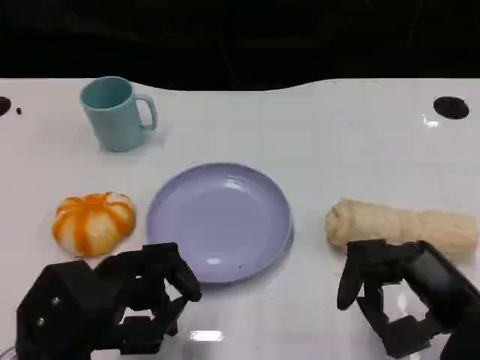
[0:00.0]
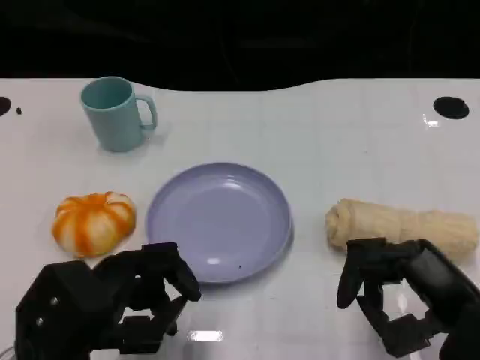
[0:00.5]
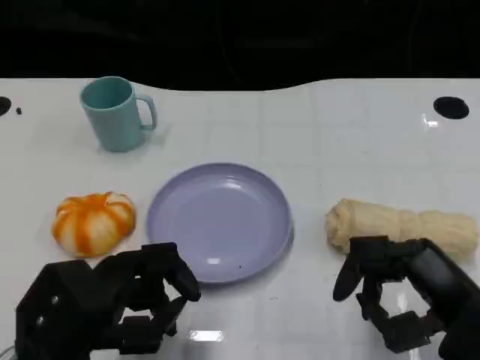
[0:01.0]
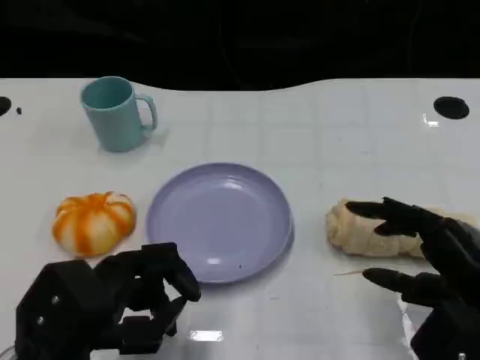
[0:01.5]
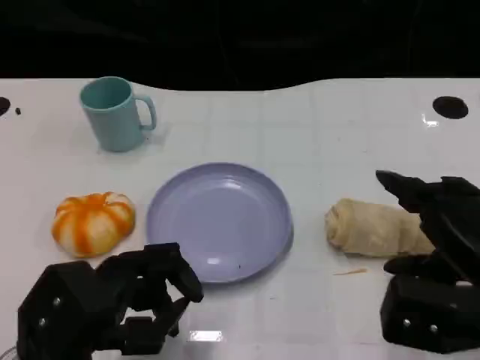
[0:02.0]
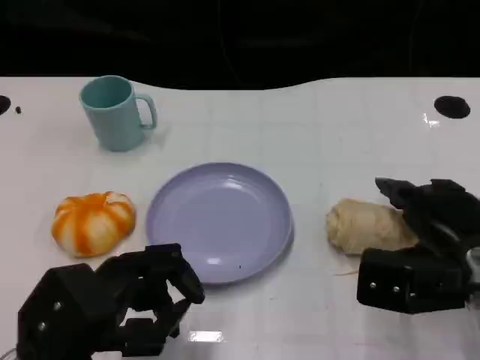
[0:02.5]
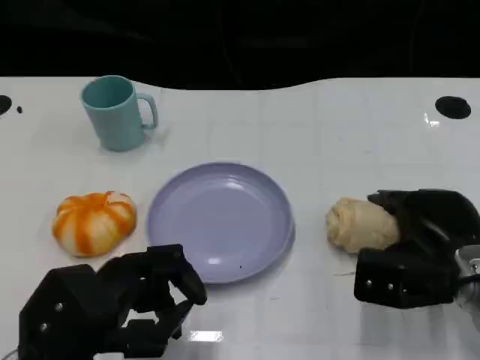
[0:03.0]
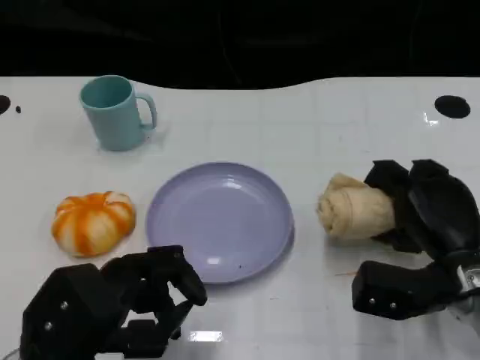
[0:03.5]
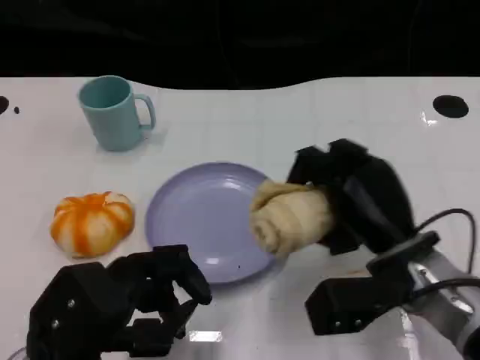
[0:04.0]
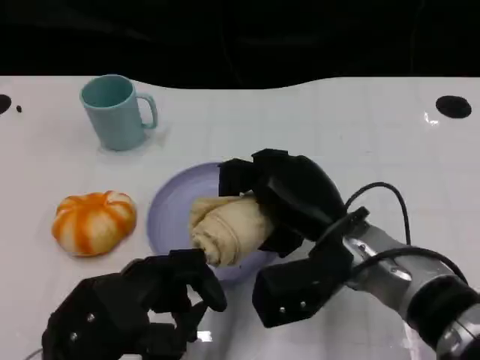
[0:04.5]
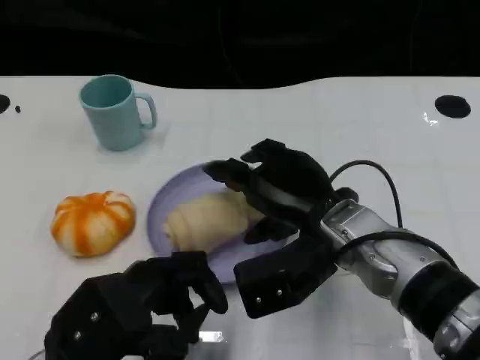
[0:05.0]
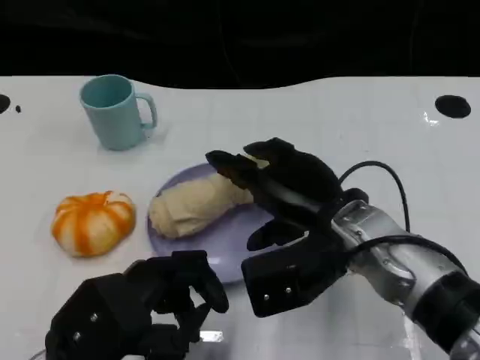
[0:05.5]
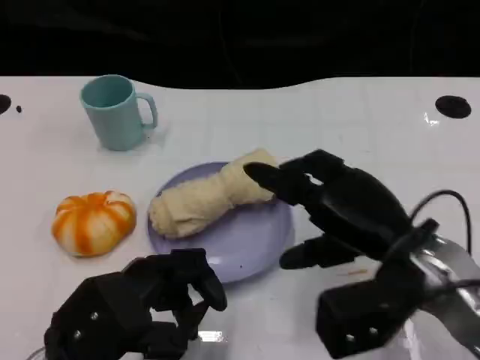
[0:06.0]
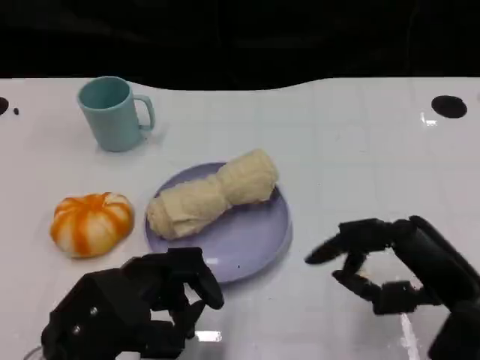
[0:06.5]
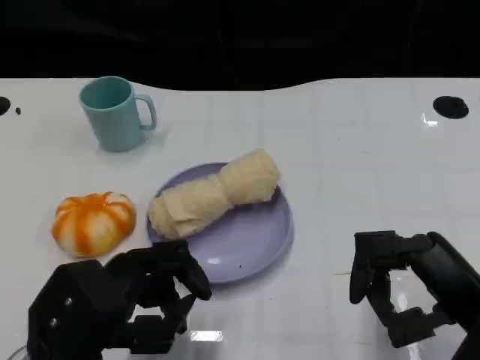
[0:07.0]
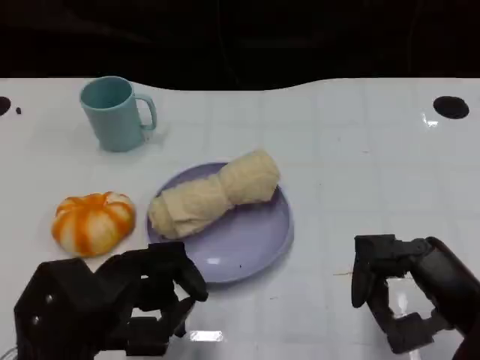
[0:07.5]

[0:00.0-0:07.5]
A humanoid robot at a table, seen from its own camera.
Task of the whole recording: Grasp the towel on the left side of the plate with the left hand and place it into the plate.
0:02.0 to 0:04.0: The right hand moves to the left and forward, some 10 cm.
0:04.0 to 0:05.5: The right hand ends up roughly 5 cm from where it was.
0:05.5 to 0:07.5: The right hand goes approximately 15 cm to the right and backward.

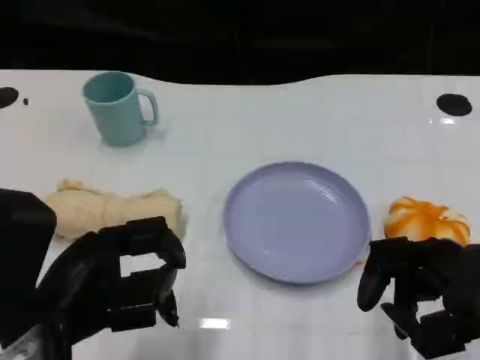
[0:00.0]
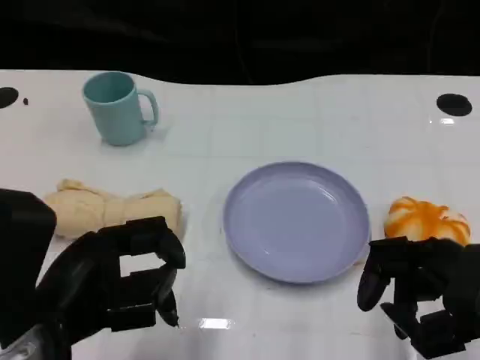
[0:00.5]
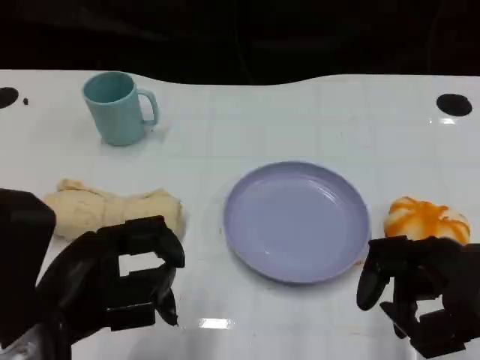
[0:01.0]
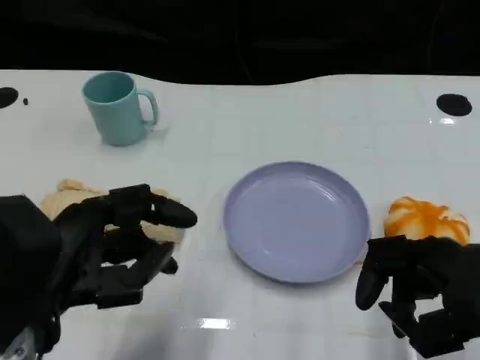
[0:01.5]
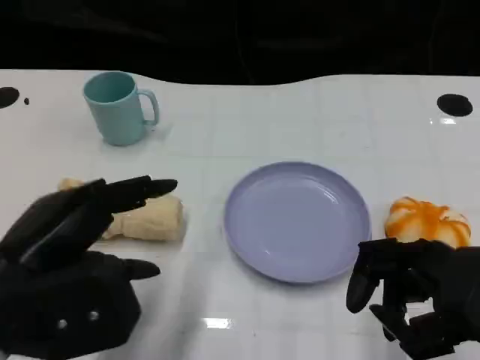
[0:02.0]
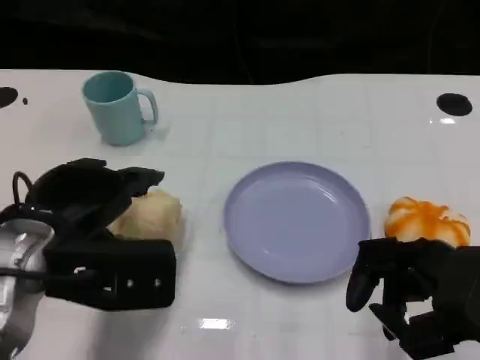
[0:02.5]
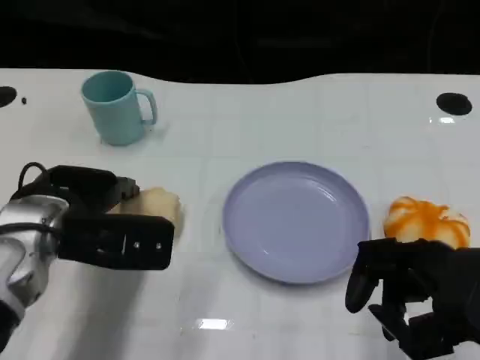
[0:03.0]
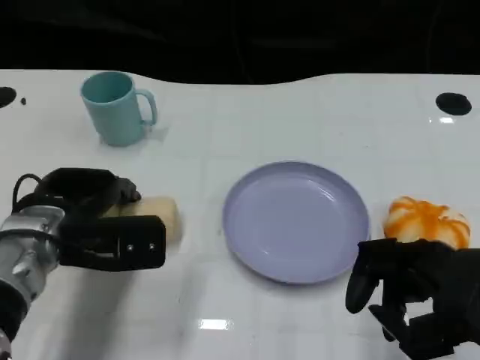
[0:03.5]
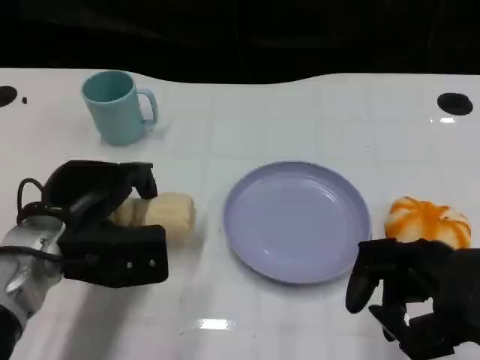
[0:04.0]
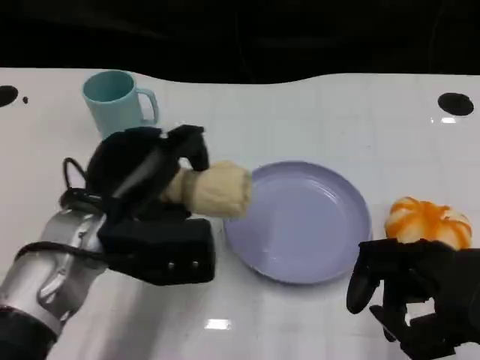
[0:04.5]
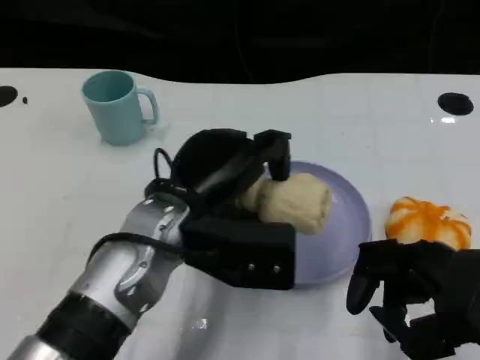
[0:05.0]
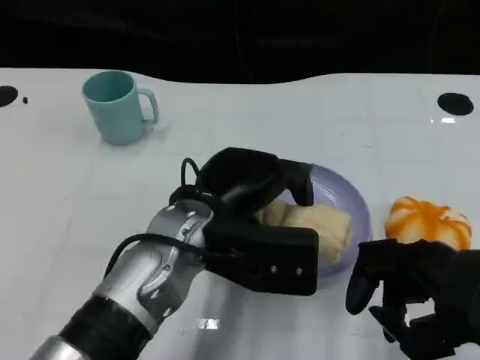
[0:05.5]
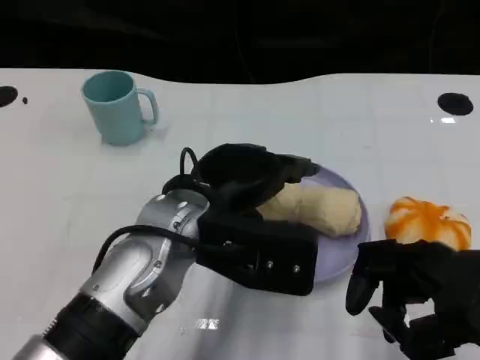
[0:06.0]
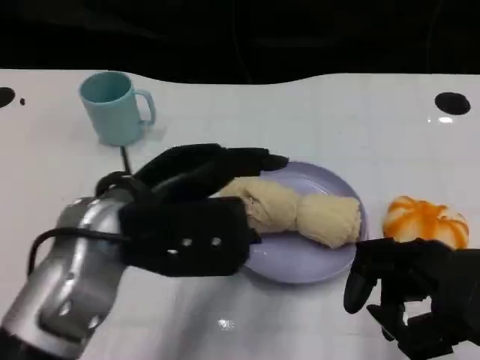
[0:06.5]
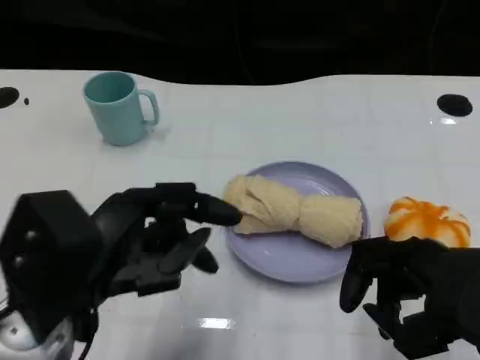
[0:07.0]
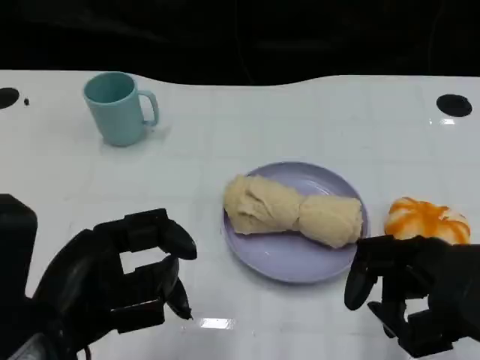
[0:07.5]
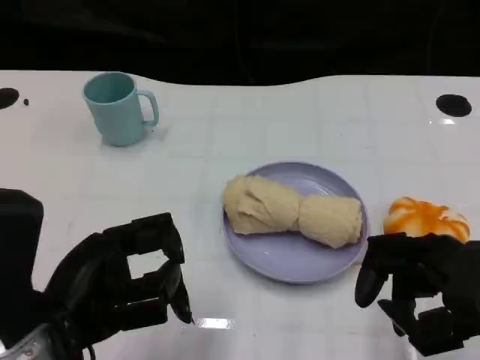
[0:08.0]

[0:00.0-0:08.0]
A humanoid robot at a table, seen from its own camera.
Task of the whole recording: Grasp the towel on the left side of the plate with the left hand and place it into the plate.
0:02.0 to 0:04.0: The left hand shifts about 10 cm forward and downward.
0:04.0 to 0:06.0: The left hand heads to the right and upward, covering some 15 cm.
0:06.0 to 0:08.0: The left hand heads to the left and backward, covering some 15 cm.

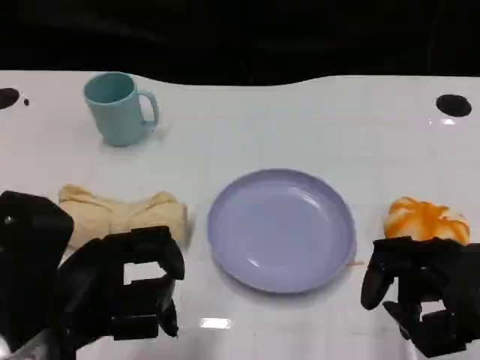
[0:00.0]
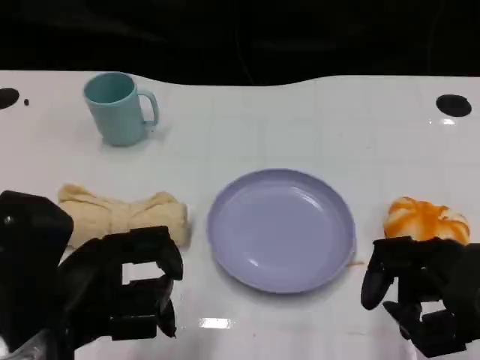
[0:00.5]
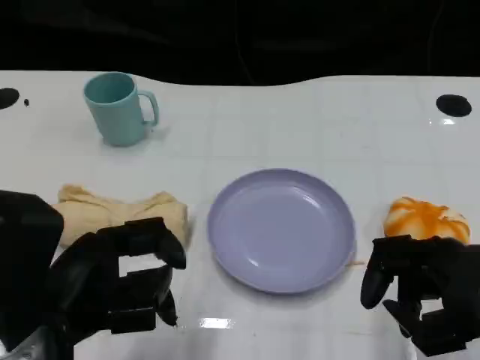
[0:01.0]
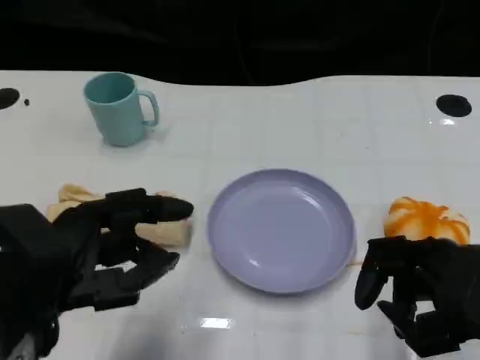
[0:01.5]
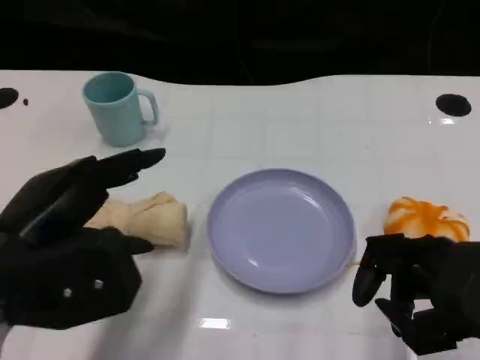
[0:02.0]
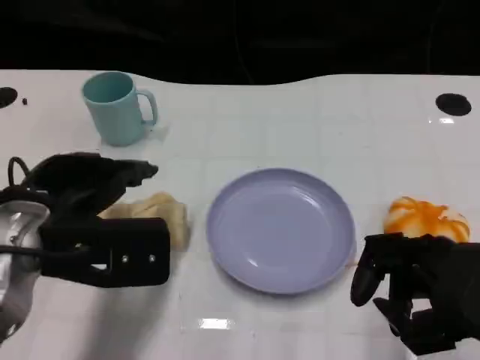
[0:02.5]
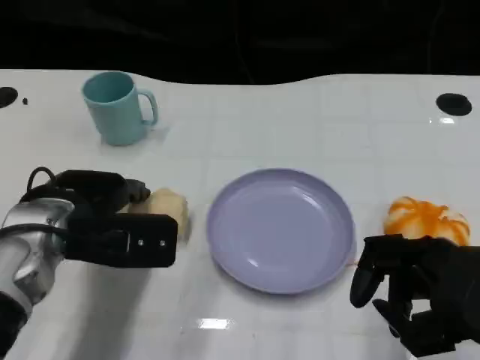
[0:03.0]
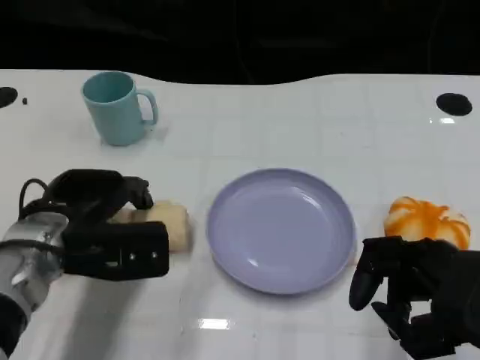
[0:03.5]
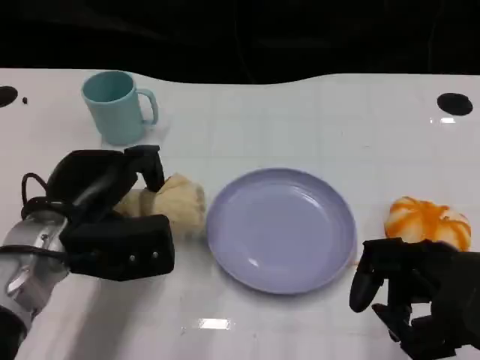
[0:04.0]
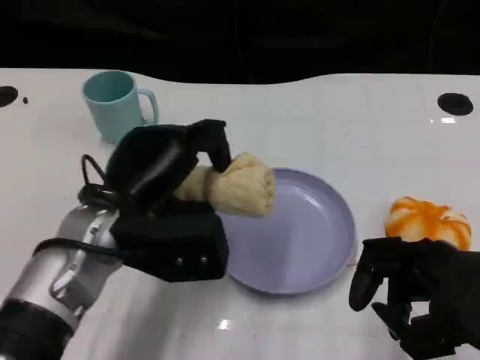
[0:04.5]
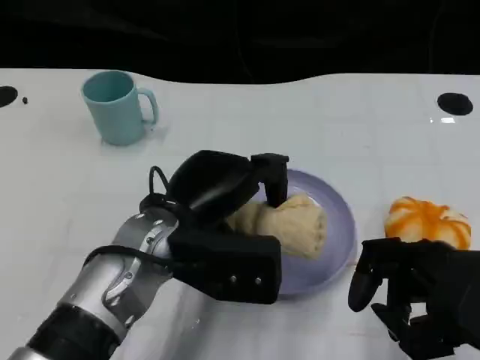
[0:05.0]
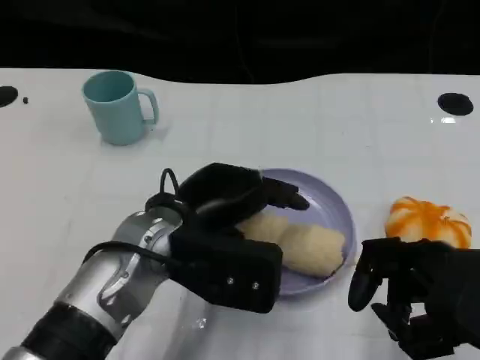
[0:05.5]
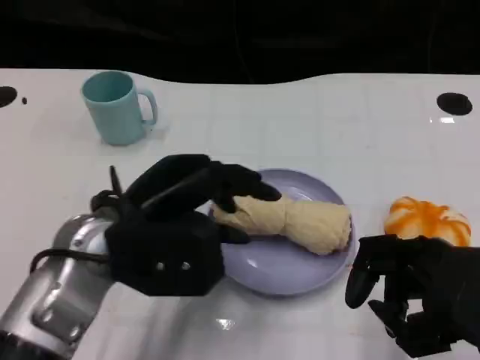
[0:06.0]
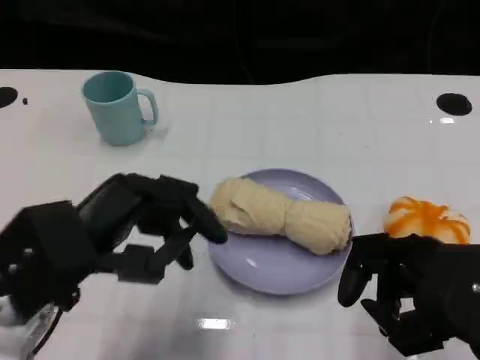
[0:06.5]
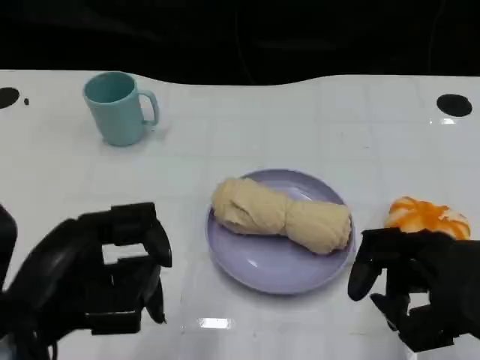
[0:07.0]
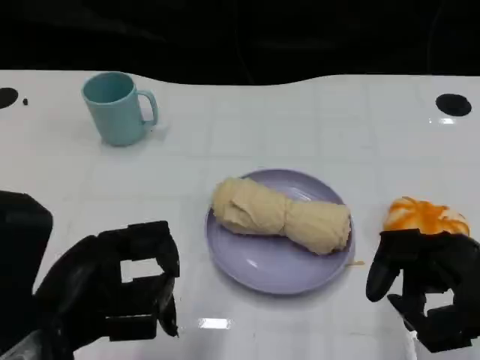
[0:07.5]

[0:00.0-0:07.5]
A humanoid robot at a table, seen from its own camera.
Task of the whole recording: Grasp the towel on the left side of the plate with the left hand and place it into the plate.
0:00.0 to 0:02.0: The left hand changes place by roughly 5 cm.
0:02.0 to 0:04.0: The left hand shifts approximately 10 cm forward and downward.
0:04.0 to 0:05.5: The left hand is displaced to the right by approximately 10 cm.
0:05.5 to 0:07.5: The left hand goes roughly 15 cm to the left and backward.

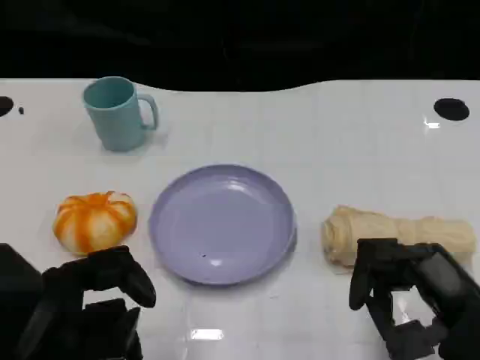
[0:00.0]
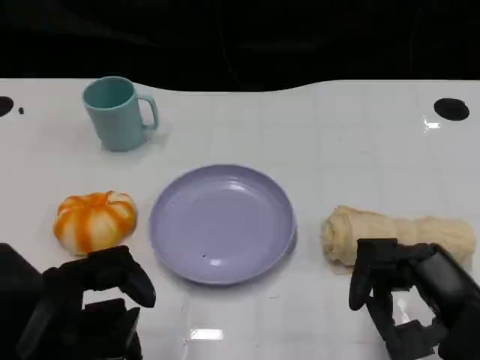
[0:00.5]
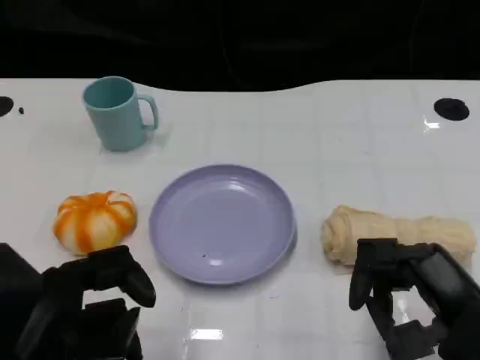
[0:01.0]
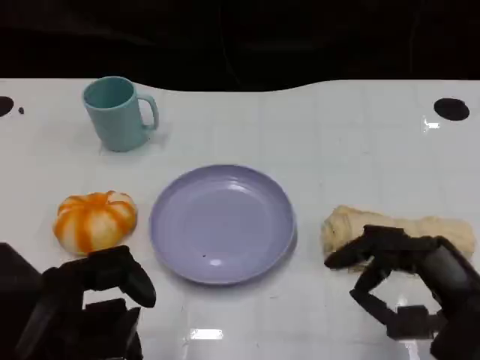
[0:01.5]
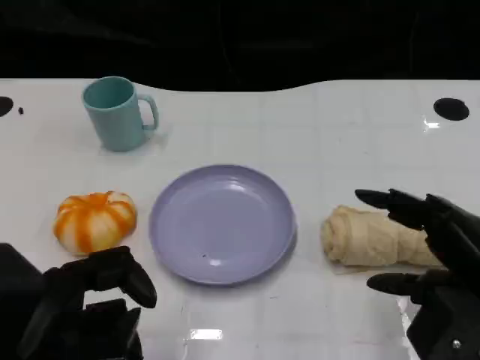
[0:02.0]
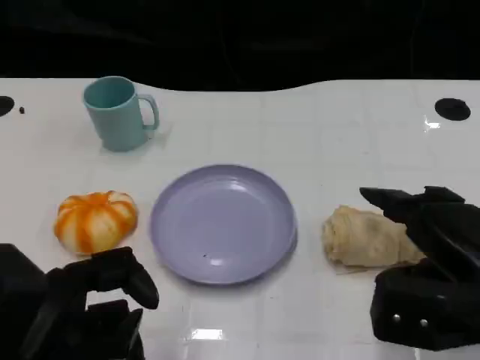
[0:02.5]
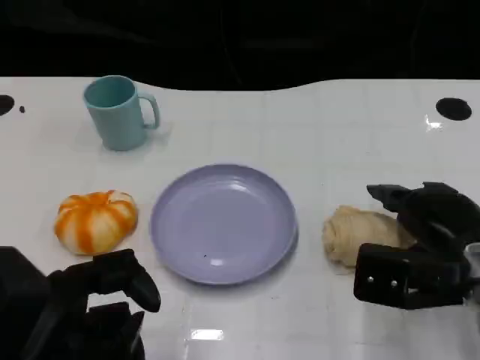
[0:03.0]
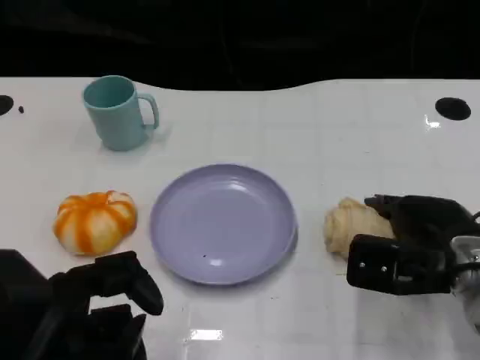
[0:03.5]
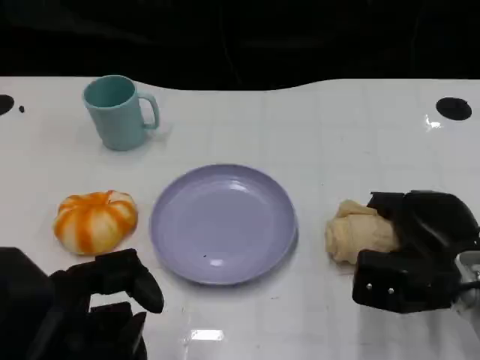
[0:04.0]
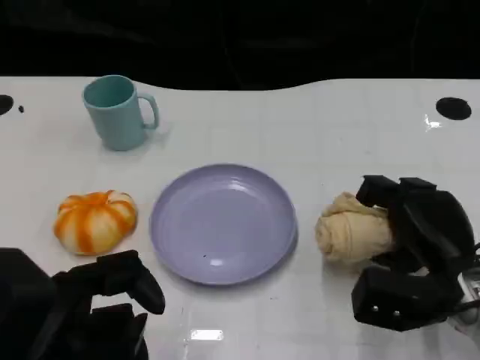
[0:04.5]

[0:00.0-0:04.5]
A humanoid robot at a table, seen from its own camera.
Task of the whole recording: Grasp the towel on the left side of the plate with the left hand and place it into the plate.
0:02.0 to 0:04.5: The right hand shifts about 10 cm downward and forward.
